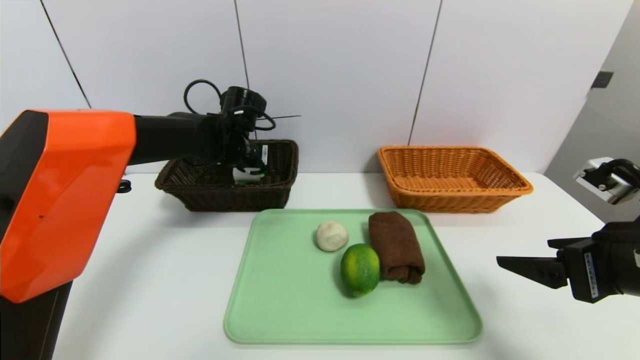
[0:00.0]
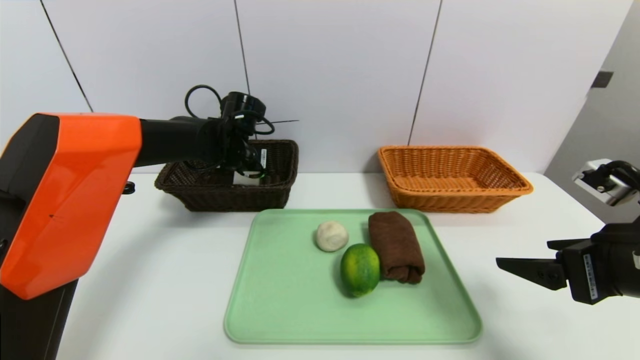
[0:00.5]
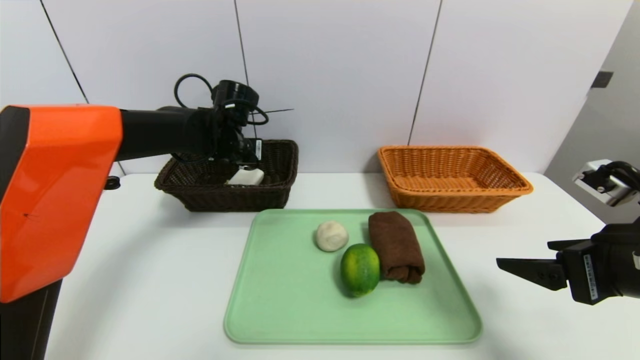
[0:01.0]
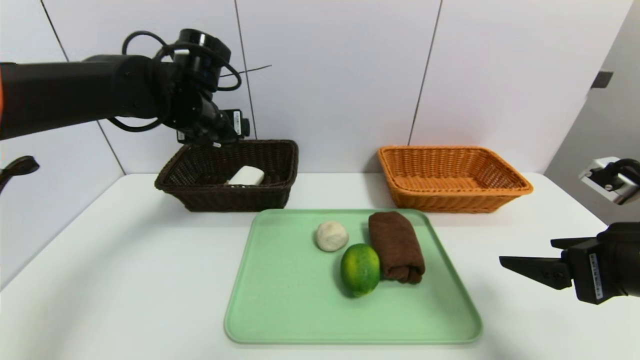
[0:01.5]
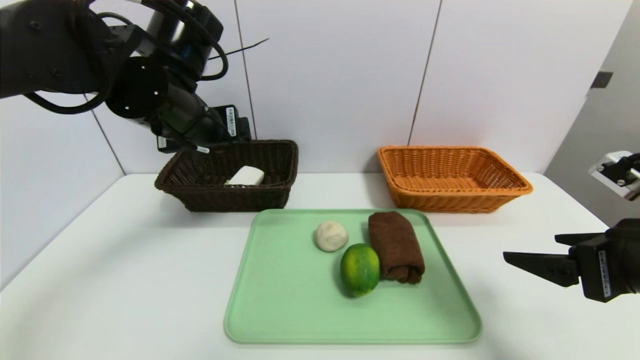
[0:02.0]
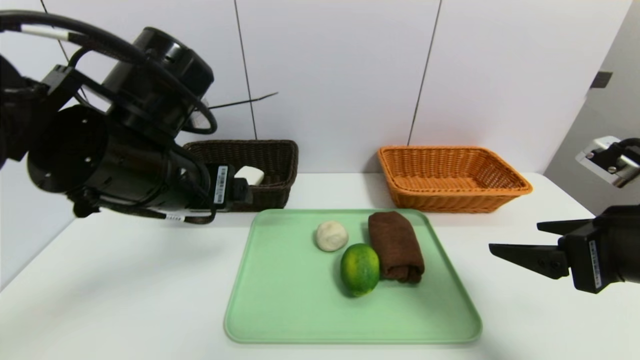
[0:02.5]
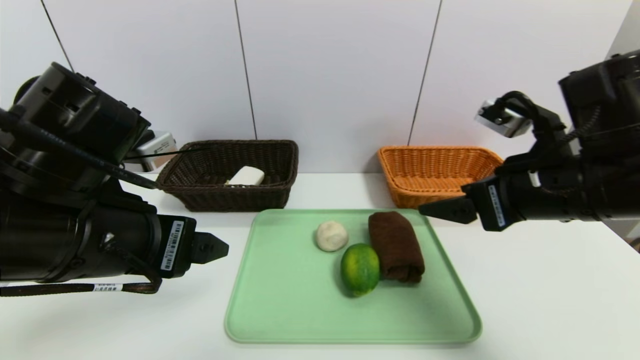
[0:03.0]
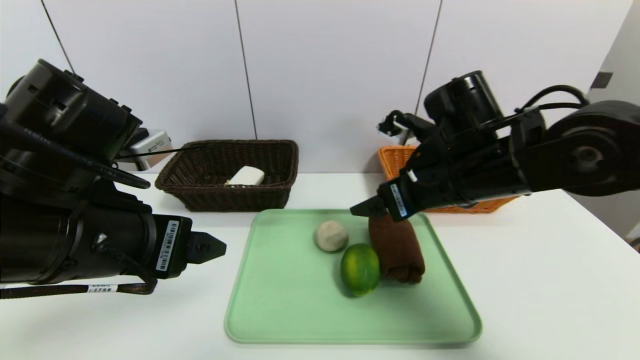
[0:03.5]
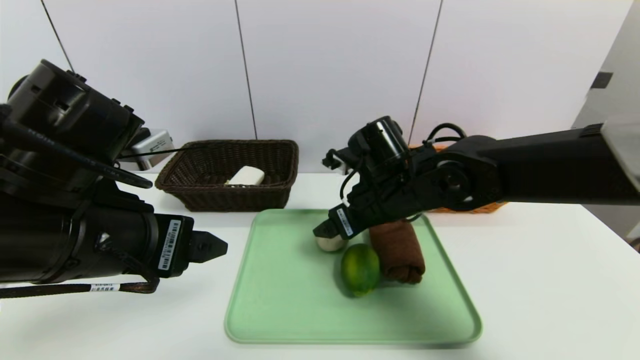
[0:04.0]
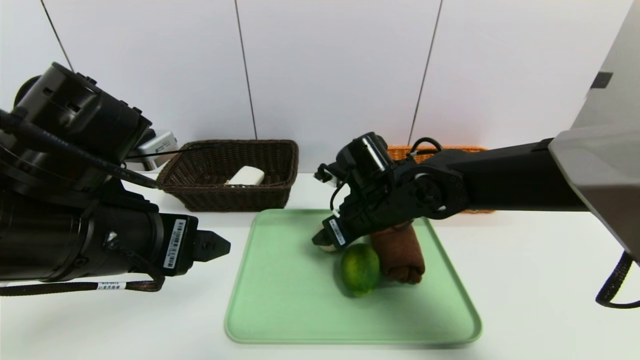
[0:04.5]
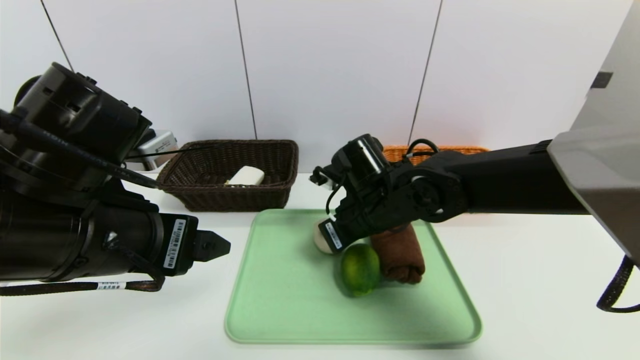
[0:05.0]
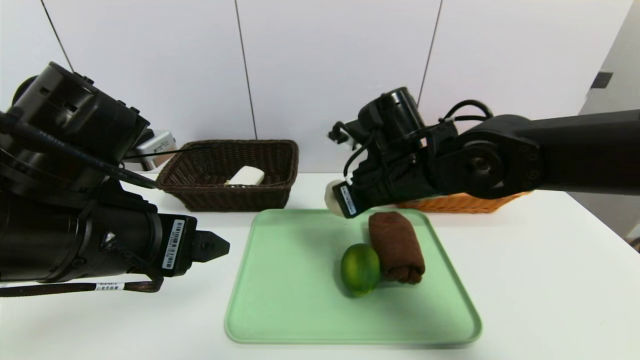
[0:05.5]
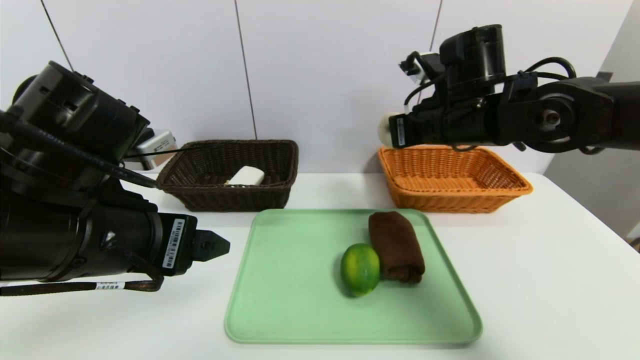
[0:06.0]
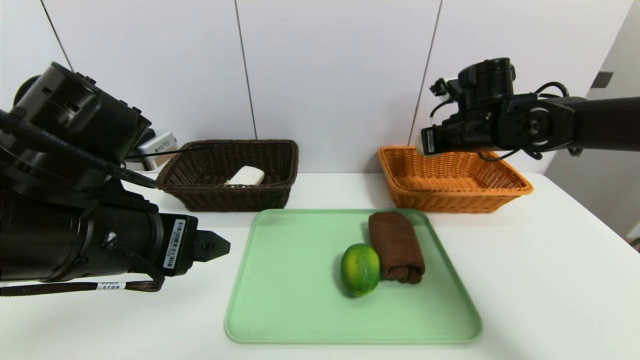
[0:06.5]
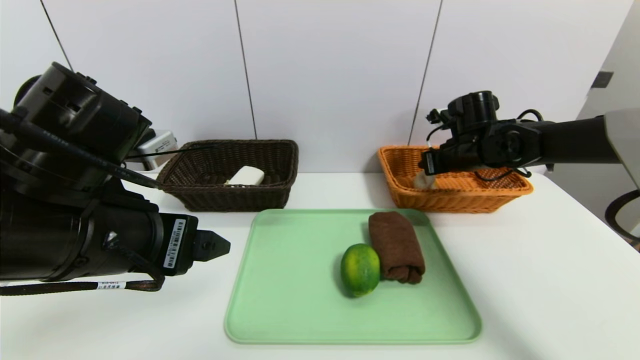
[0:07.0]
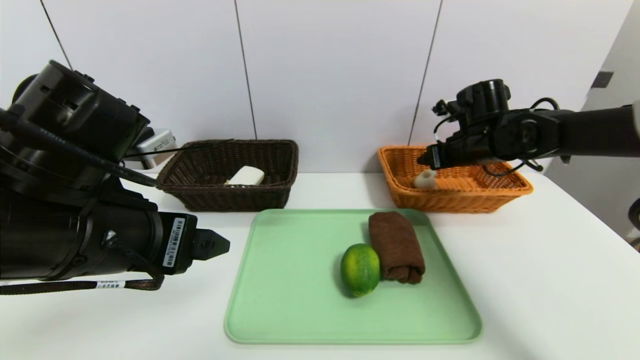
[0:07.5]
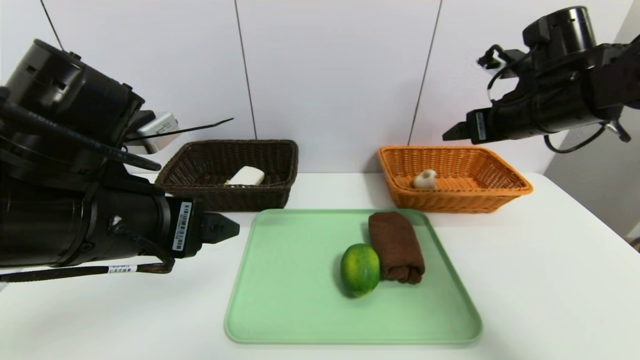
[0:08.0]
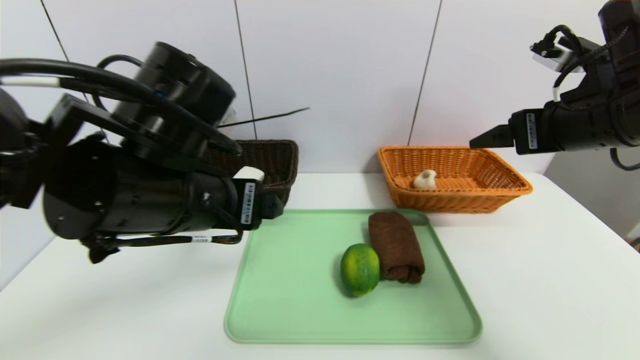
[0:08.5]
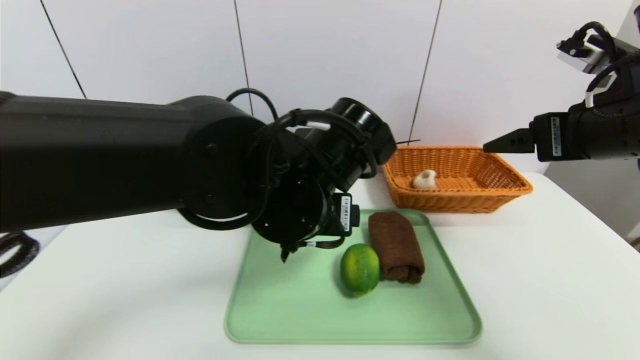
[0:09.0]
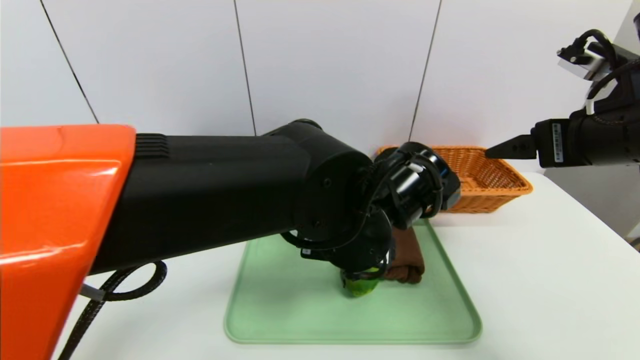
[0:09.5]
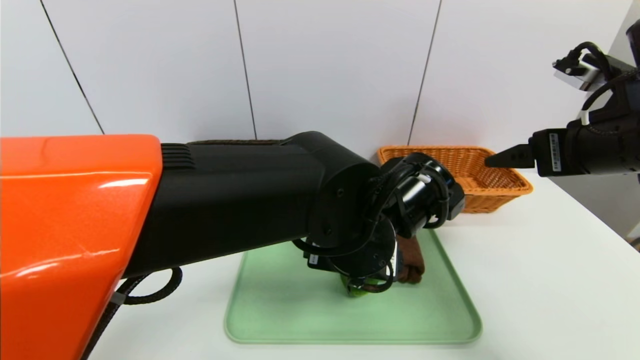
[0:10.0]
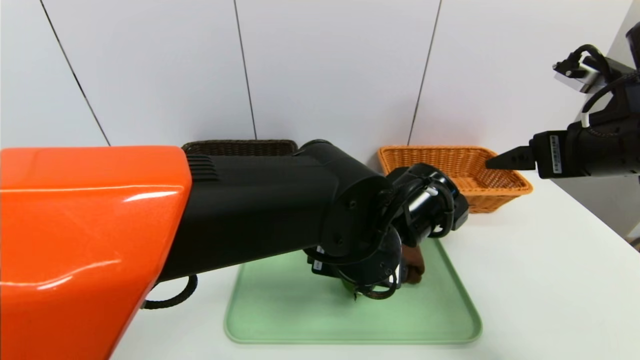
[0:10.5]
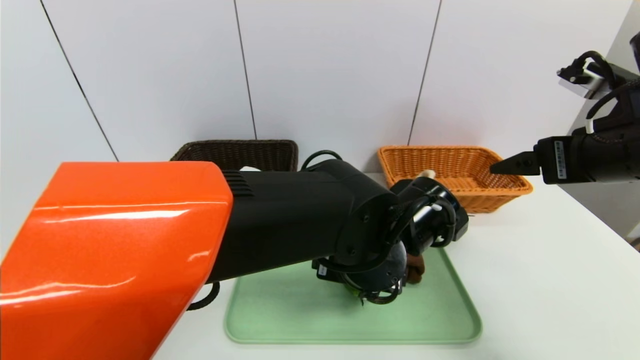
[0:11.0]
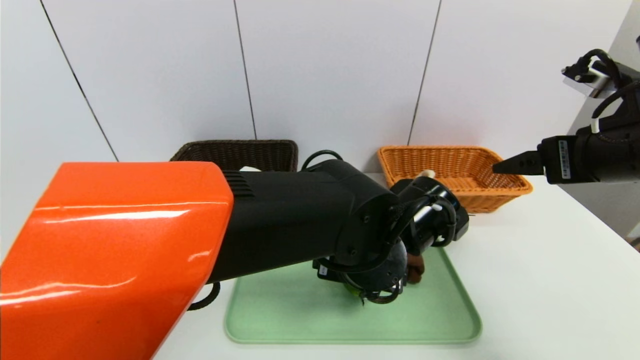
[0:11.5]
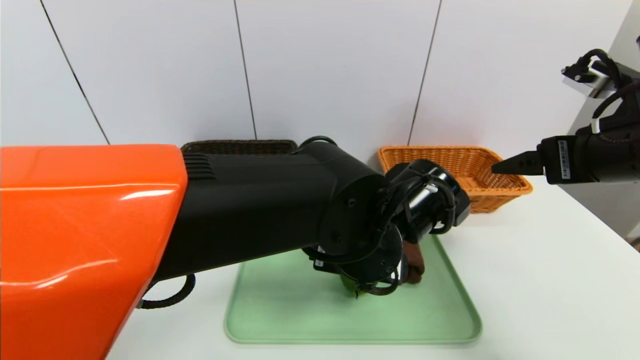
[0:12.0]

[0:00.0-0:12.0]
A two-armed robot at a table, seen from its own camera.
Task of the whole recording: place the food in the right basket with the right gripper, and place the non food items in the left basket with the left gripper.
Step, 0:01.0 to 0:07.0: Grasp the peach and put it in the right basket.
0:00.0 to 0:02.0: The left gripper heads backward and upward, covering about 15 cm, and opens its fingers.
0:02.0 to 0:04.0: The right gripper heads to the left and forward, covering some 25 cm, while the left gripper heads backward, covering approximately 15 cm.
0:04.0 to 0:06.0: The right gripper shifts about 10 cm upward and to the right, and closes up.
0:06.0 to 0:08.0: The right gripper travels to the right by approximately 10 cm, moves roughly 10 cm downward and comes back, and opens its fingers.
0:08.0 to 0:10.0: The right gripper is displaced backward by some 10 cm. Meanwhile the left gripper moves to the right, roughly 20 cm.
0:10.0 to 0:12.0: There are only small adjustments of the grippers.

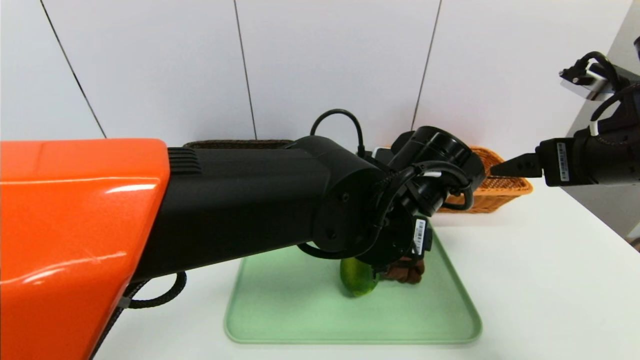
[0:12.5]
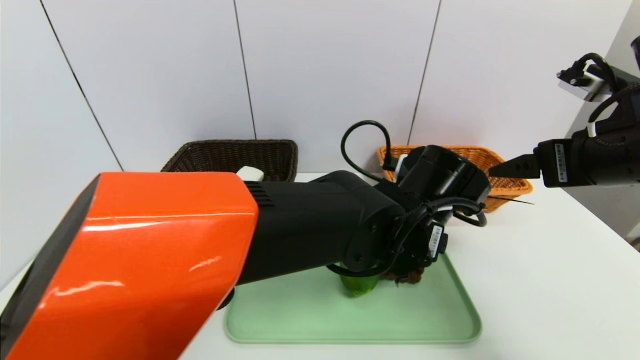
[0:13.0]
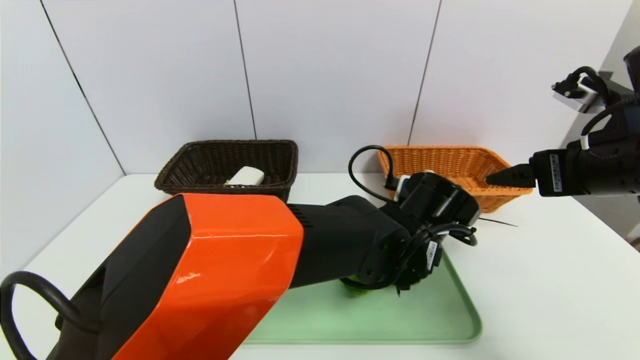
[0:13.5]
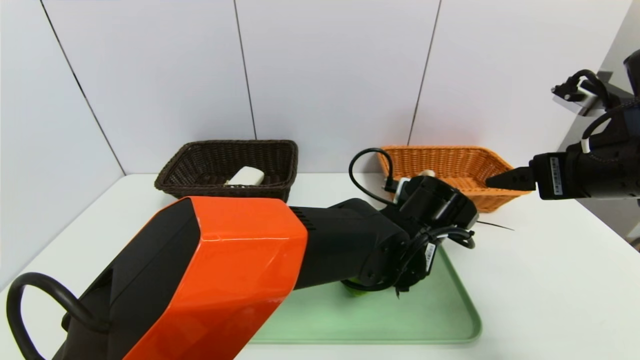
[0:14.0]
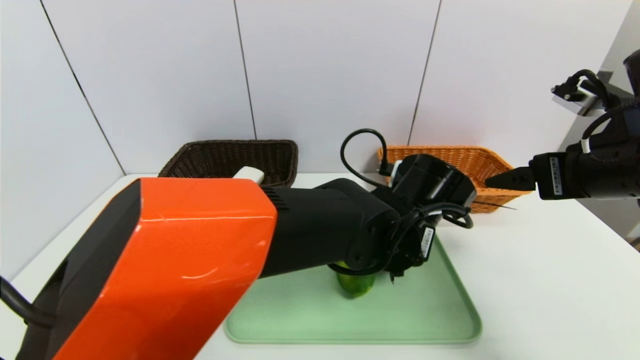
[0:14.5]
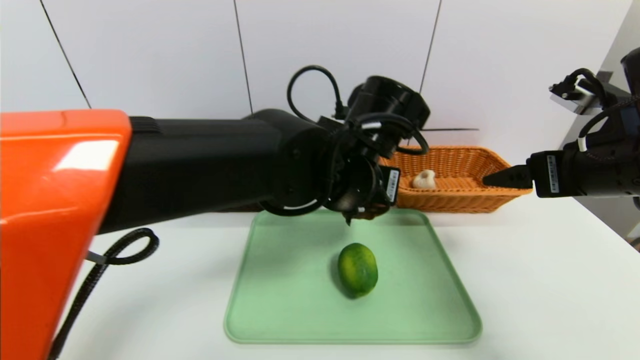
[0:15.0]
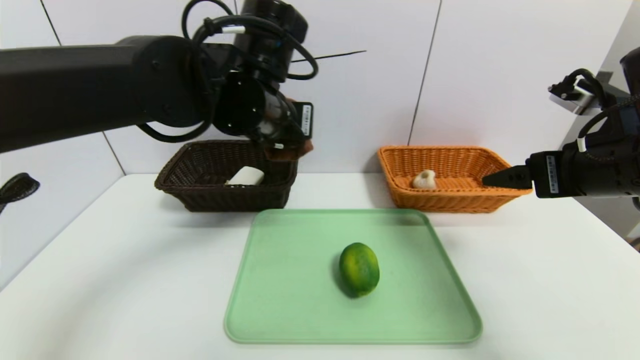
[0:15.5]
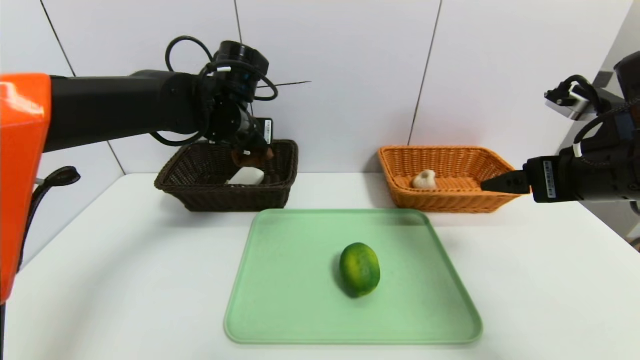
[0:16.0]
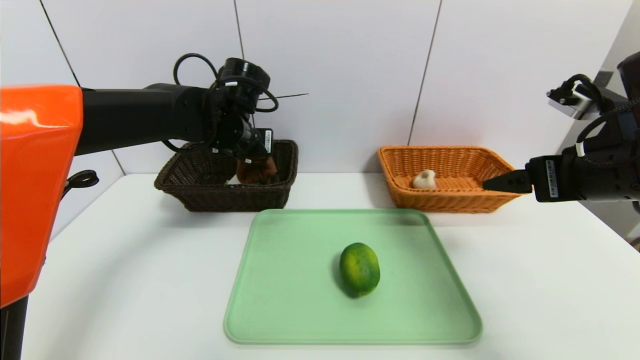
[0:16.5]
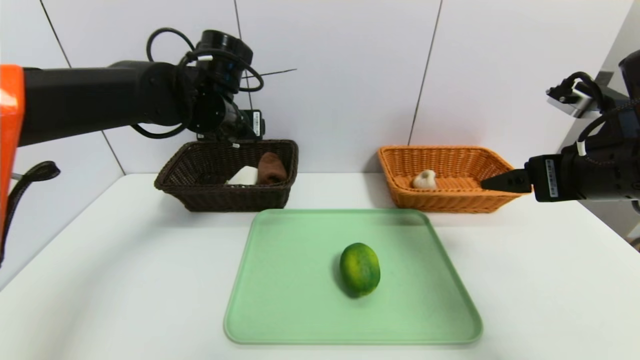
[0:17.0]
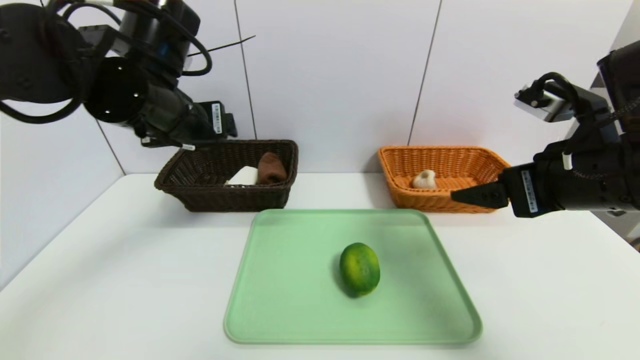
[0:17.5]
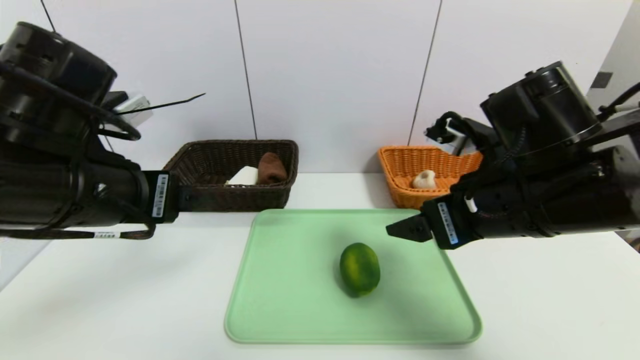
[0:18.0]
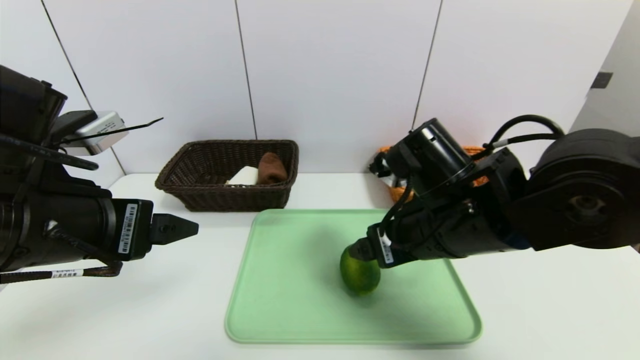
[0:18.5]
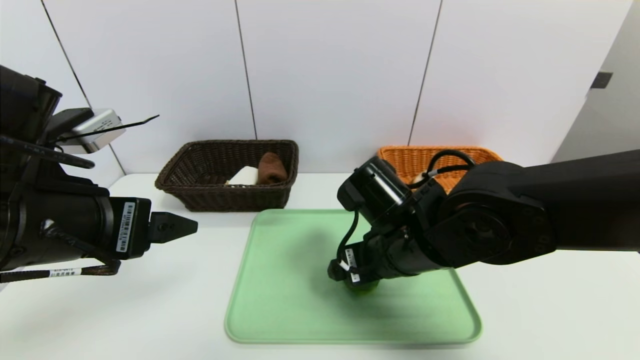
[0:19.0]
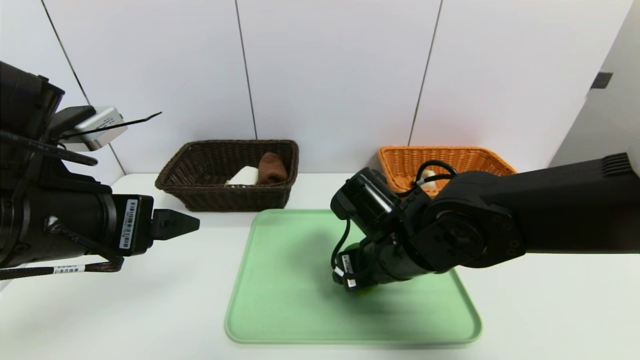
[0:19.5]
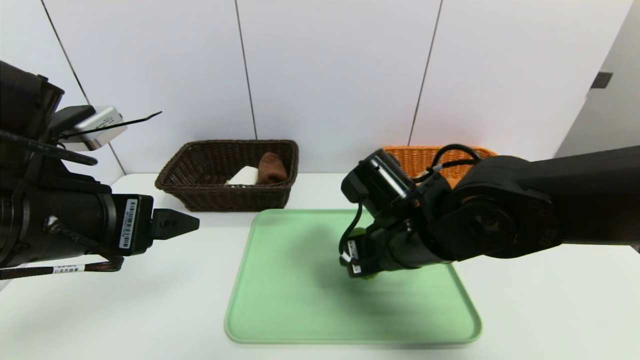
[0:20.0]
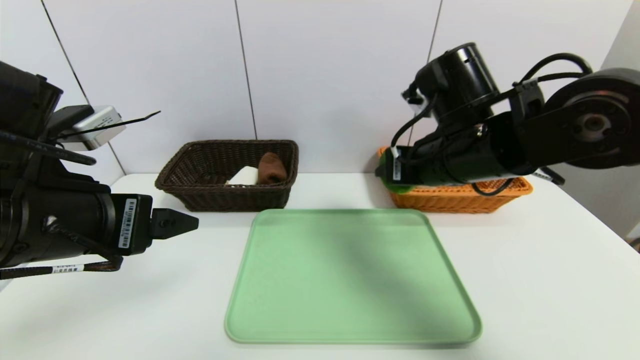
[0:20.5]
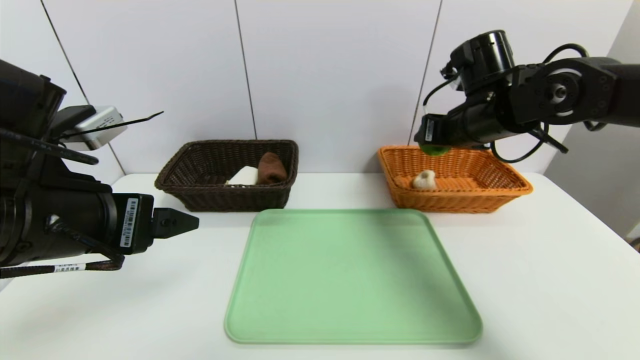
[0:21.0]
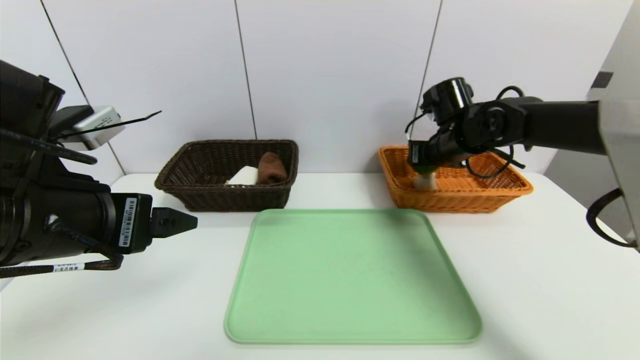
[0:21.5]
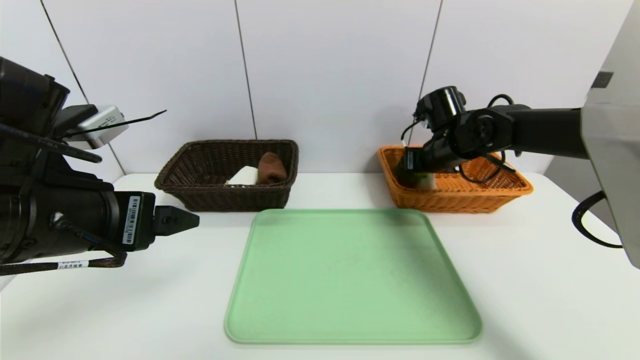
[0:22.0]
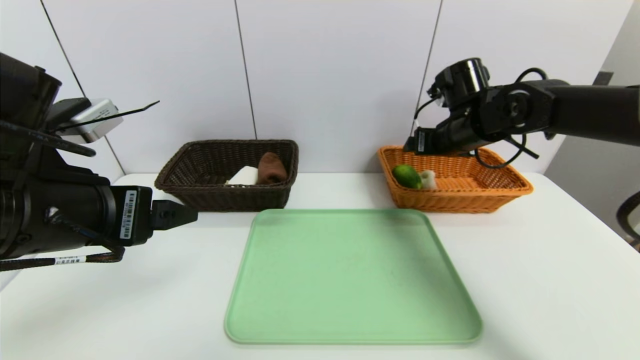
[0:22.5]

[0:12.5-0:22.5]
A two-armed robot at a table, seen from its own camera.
Task of the whole recording: place the food in the right basket with the right gripper, and place the non food items in the left basket with the left gripper.
Step, 0:12.5 to 0:17.0: Grasp the brown towel and put it in the left basket.
Step, 0:17.5 to 0:22.0: Grasp the lemon and put it in the right basket.
0:12.5 to 0:14.5: The left gripper closes up.
0:14.5 to 0:16.5: The left gripper goes approximately 25 cm to the left and forward, and opens its fingers.
0:16.5 to 0:18.5: The left gripper heads backward, covering some 25 cm, and opens up. The right gripper moves to the left and downward, approximately 20 cm.
0:18.5 to 0:20.5: The right gripper moves upward and forward, roughly 10 cm, and closes its fingers.
0:20.5 to 0:22.5: The right gripper shifts roughly 15 cm forward and to the right, and opens.
